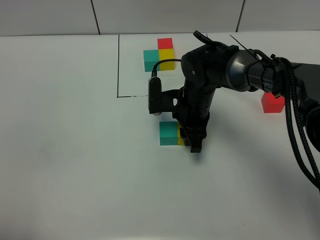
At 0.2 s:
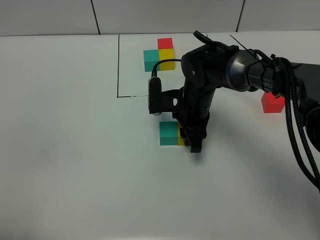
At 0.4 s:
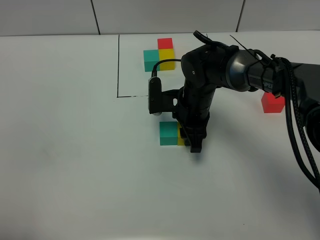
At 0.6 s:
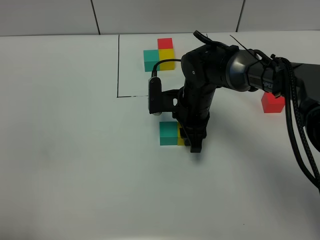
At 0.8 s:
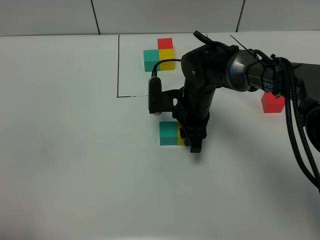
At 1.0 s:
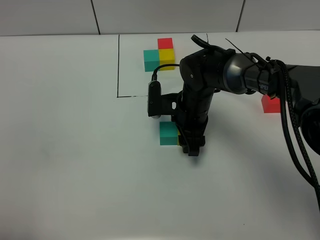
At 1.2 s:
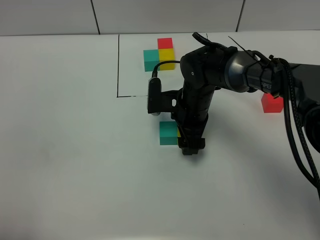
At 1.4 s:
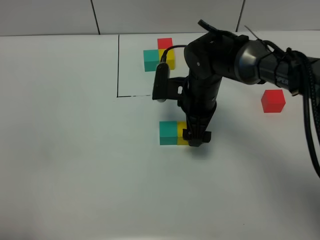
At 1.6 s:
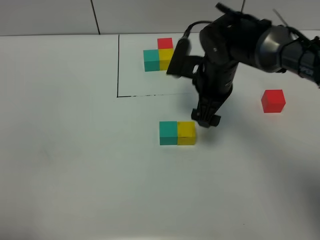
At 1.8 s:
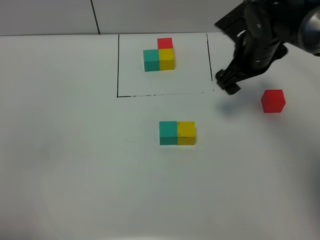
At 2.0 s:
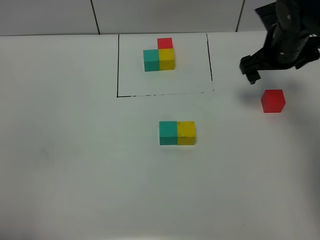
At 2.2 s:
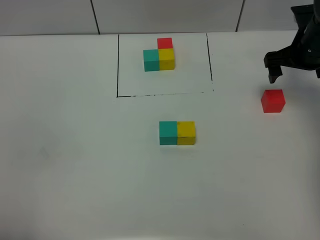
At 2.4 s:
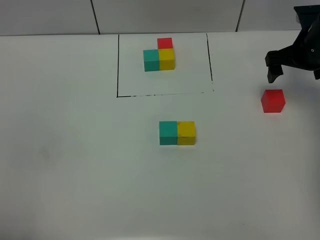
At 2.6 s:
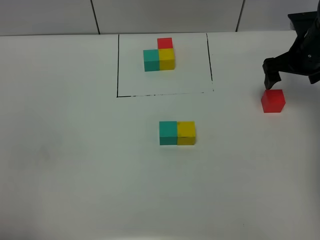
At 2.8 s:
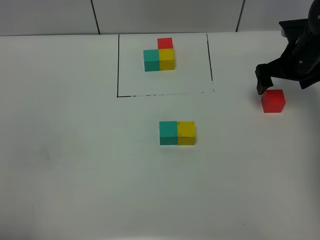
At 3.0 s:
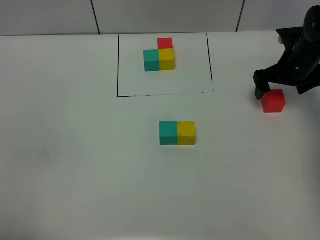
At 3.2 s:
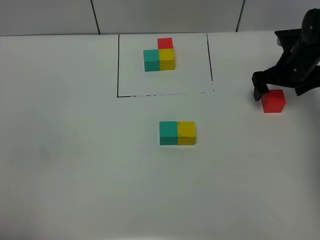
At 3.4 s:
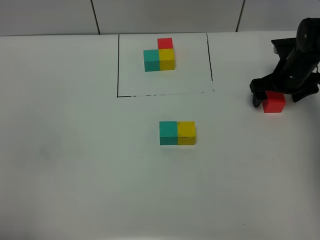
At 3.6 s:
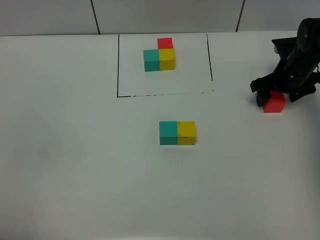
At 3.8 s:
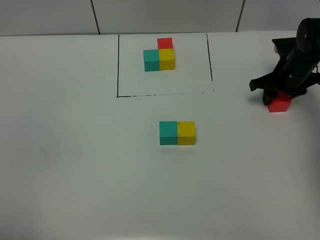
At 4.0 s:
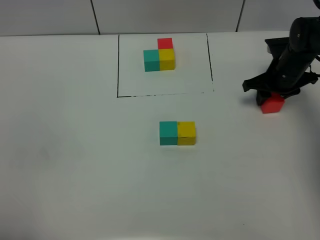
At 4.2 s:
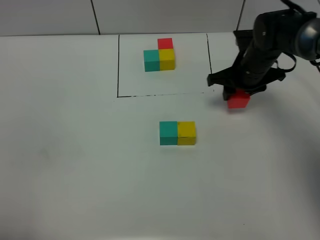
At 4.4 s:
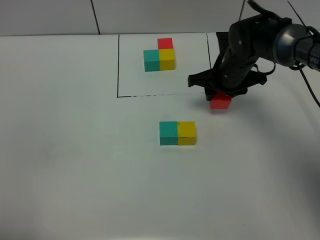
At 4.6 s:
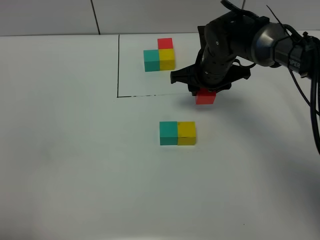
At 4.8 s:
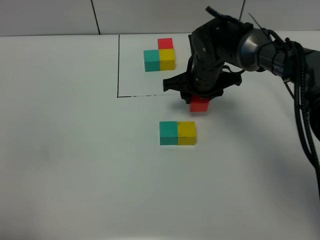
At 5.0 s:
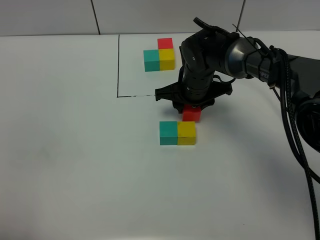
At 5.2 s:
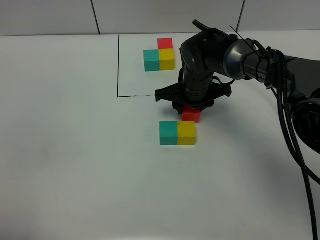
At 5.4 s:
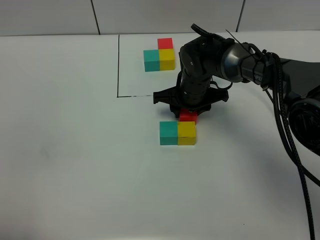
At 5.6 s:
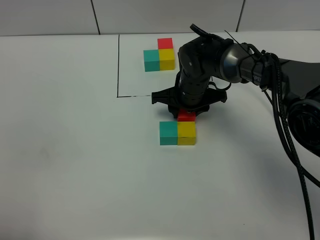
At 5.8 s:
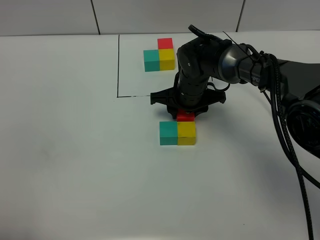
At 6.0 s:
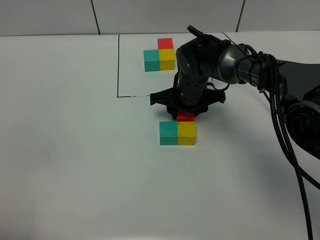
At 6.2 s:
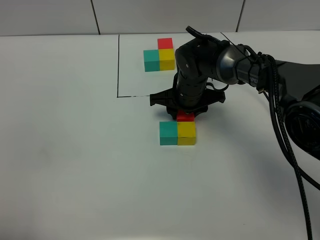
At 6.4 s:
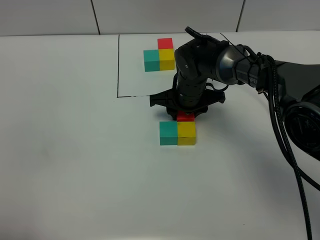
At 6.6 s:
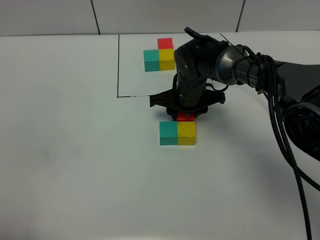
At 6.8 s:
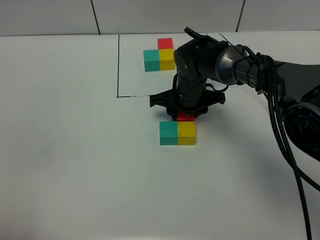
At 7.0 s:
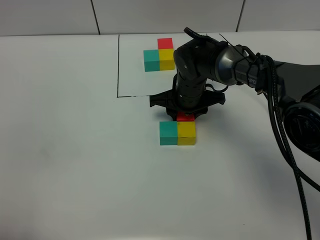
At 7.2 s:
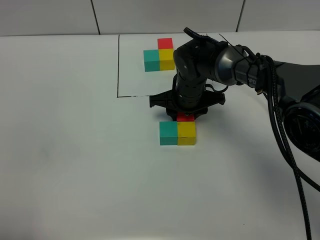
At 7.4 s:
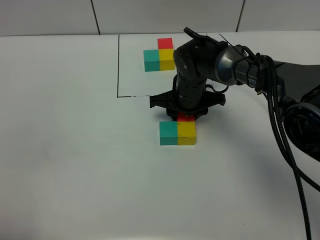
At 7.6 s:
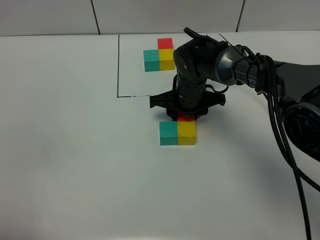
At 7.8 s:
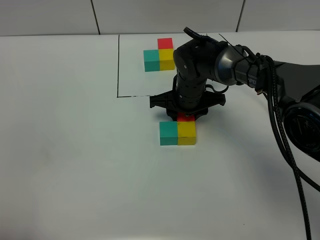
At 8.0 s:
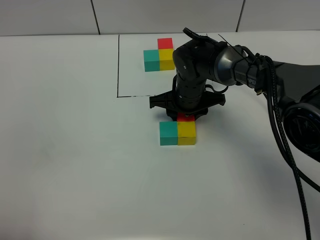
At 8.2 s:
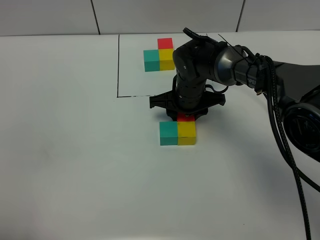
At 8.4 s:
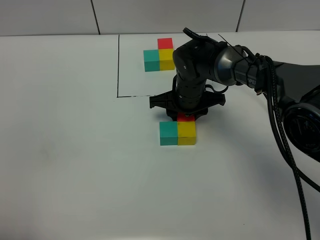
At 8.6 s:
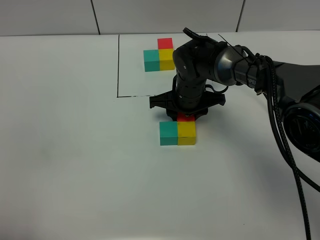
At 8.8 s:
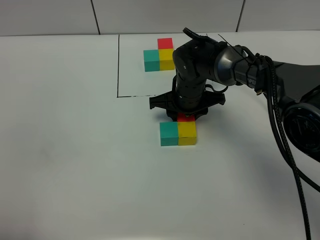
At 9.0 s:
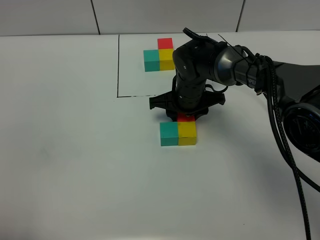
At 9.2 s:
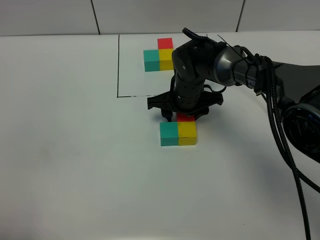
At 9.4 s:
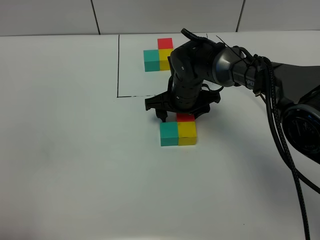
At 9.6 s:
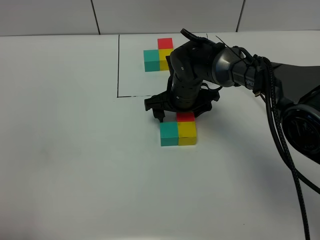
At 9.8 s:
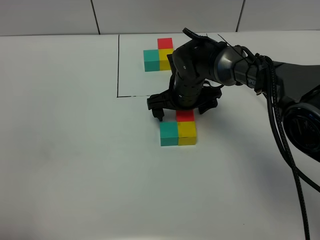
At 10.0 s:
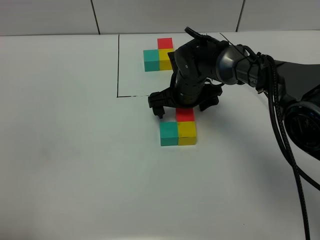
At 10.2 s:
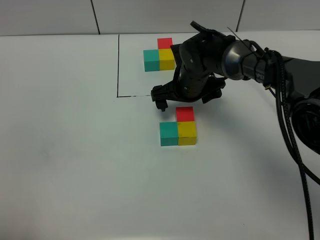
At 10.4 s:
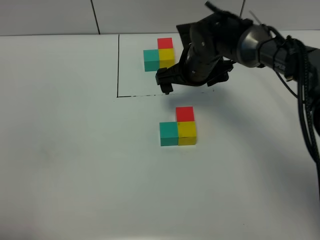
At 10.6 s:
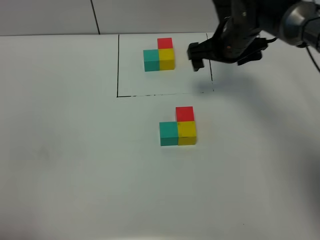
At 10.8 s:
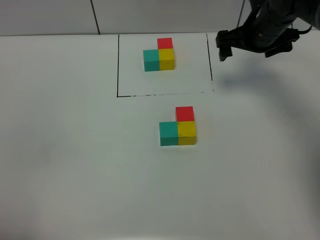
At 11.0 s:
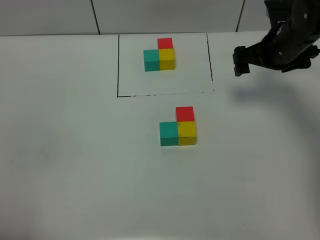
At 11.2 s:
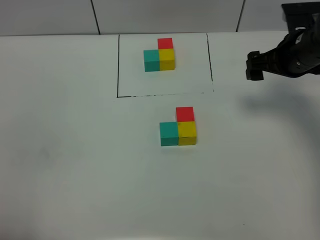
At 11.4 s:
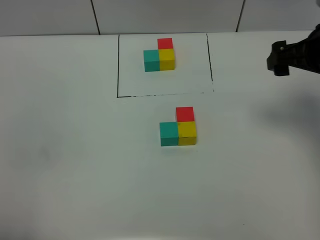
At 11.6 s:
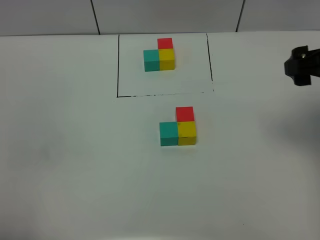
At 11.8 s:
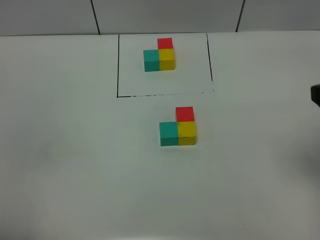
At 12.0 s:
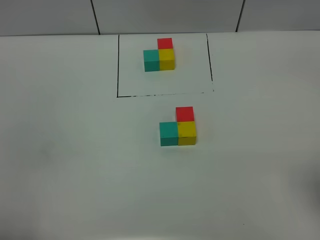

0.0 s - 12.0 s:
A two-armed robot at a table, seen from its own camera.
Task of the whole recording: According to the building block template in front, assemble the scattered blocks together.
Step, 1.4 s - 9.2 s: Put the red build block on the front of the yellow build block.
0.0 s - 1.6 s: The right gripper moves upward, some 5 cm, and opens.
1.6 s - 3.0 s: The right gripper travels to the right by about 15 cm.
3.0 s - 4.4 s: The right gripper goes approximately 15 cm to the left, and closes up.
4.4 s - 6.0 s: The right gripper is displaced to the left by approximately 10 cm.
6.0 s - 9.0 s: Both grippers stay put.
9.0 s - 10.4 s: The right gripper shifts about 5 cm upward, and opens its fingers.
10.4 s - 12.0 s: The right gripper moves backward, to the right and upward, approximately 40 cm.

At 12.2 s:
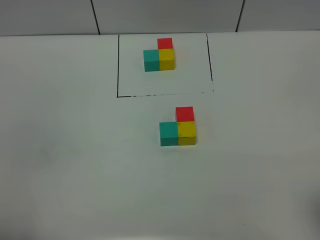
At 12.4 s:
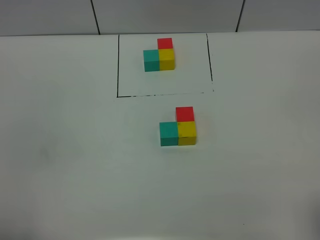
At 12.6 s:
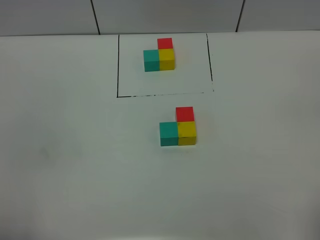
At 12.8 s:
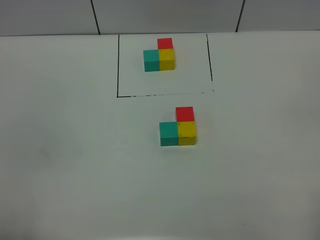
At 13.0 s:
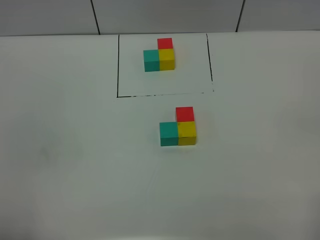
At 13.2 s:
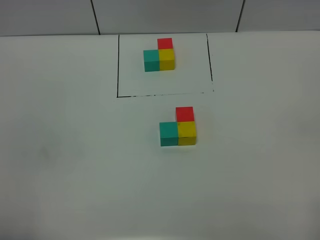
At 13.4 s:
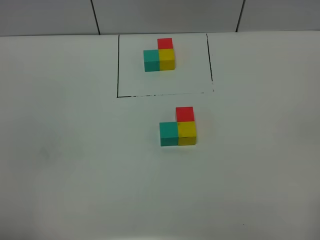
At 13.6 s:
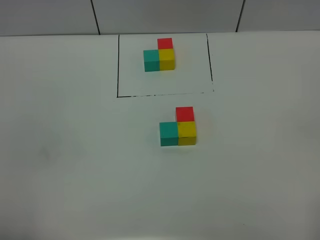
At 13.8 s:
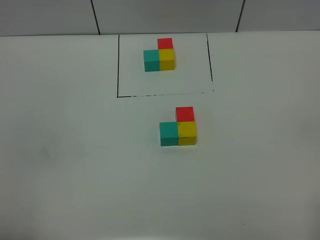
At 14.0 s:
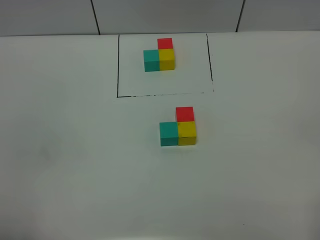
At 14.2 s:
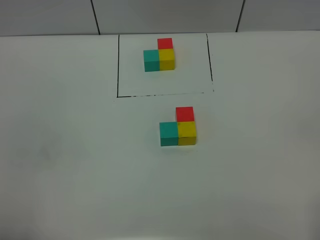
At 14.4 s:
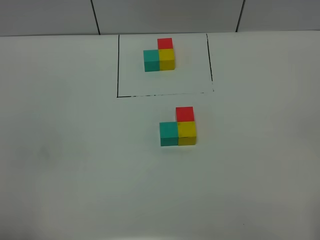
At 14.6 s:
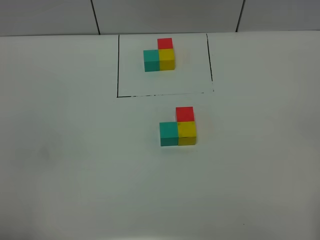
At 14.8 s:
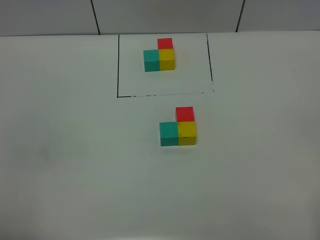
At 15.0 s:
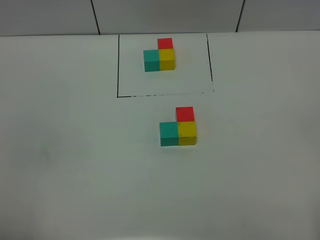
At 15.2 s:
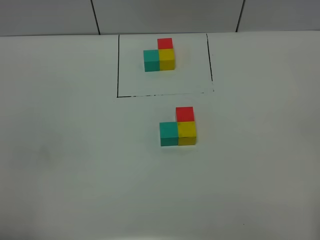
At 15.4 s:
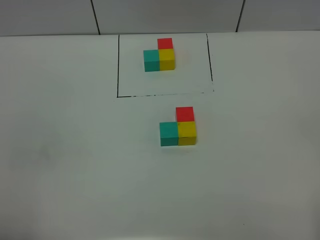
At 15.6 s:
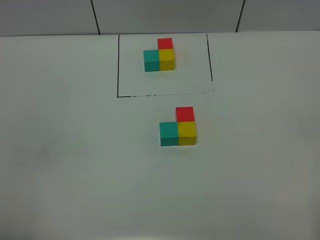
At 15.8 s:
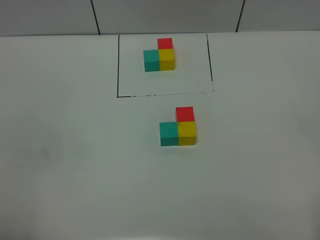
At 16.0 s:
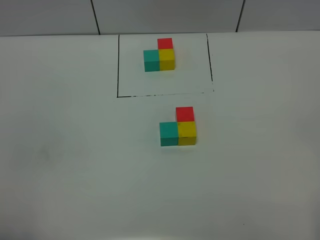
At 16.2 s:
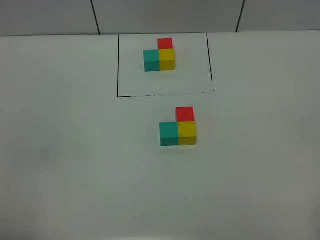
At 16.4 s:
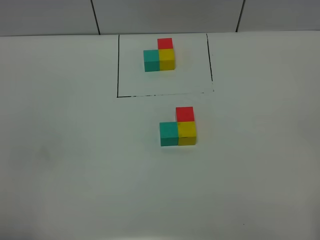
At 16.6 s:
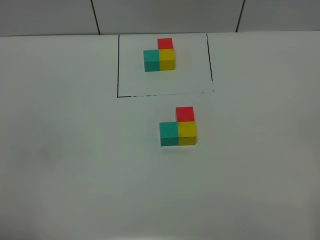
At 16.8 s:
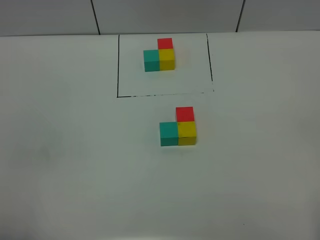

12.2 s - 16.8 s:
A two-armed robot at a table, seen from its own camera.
Task of the whole recording: According to the building block template in front, assemble the scattered blocks together.
15.2 s - 16.8 s: Both grippers stay about where they are.
